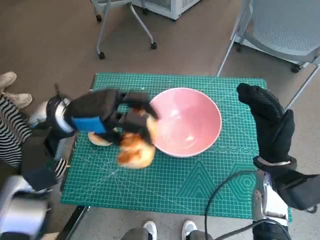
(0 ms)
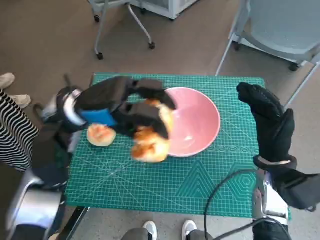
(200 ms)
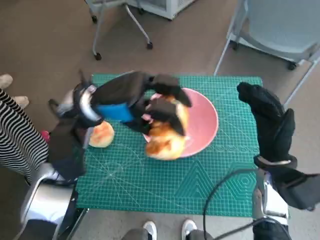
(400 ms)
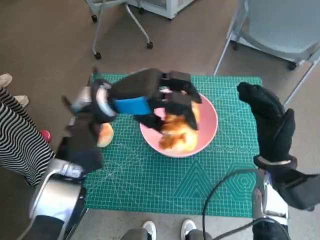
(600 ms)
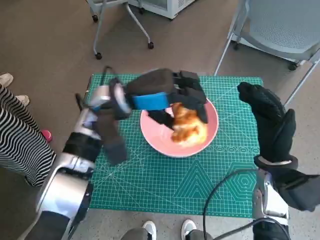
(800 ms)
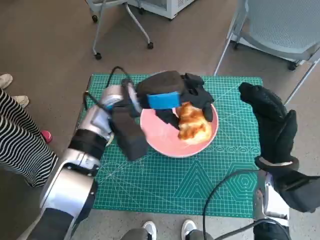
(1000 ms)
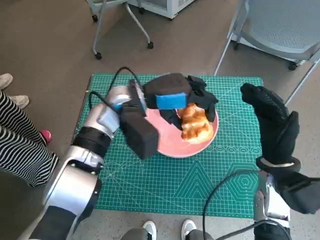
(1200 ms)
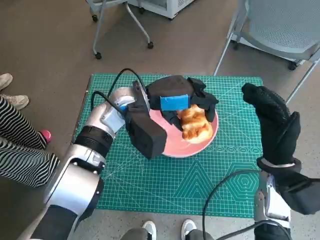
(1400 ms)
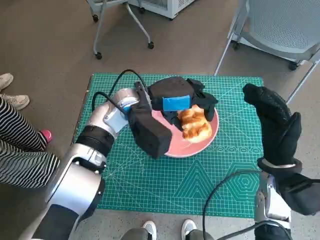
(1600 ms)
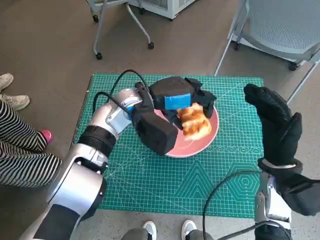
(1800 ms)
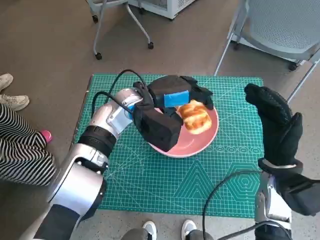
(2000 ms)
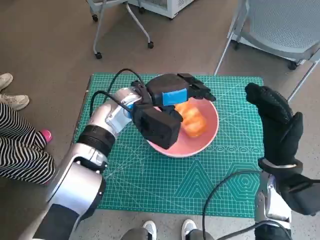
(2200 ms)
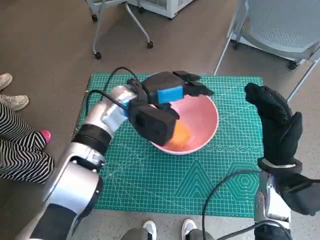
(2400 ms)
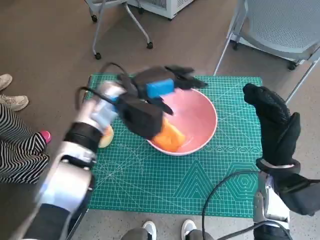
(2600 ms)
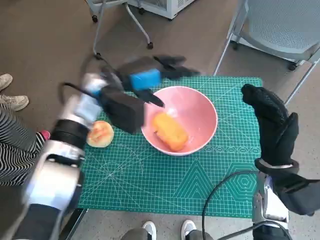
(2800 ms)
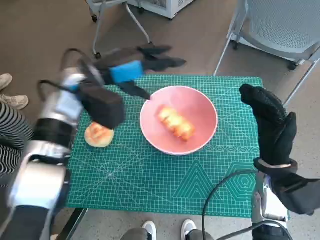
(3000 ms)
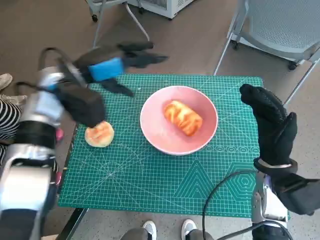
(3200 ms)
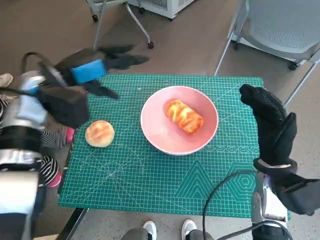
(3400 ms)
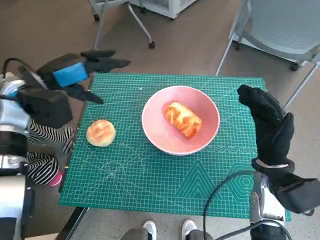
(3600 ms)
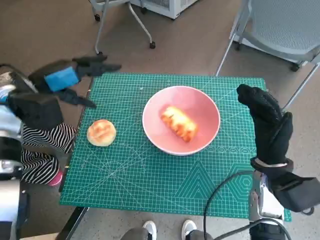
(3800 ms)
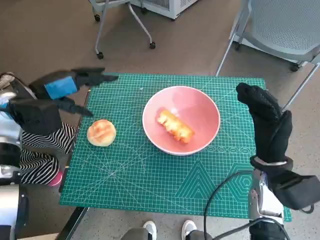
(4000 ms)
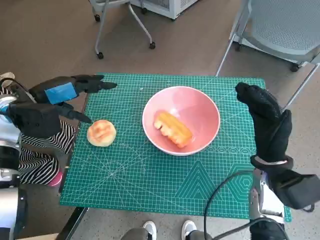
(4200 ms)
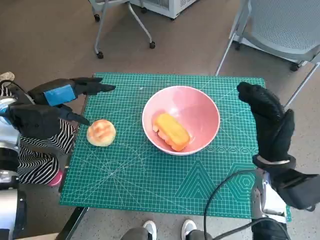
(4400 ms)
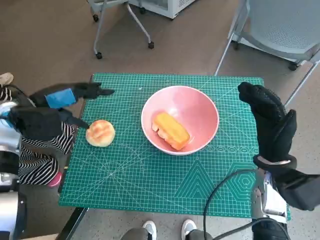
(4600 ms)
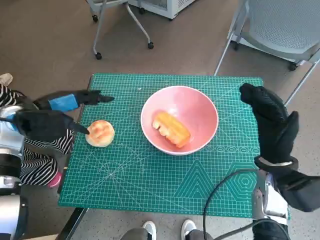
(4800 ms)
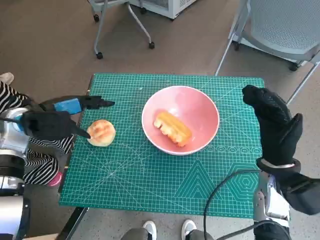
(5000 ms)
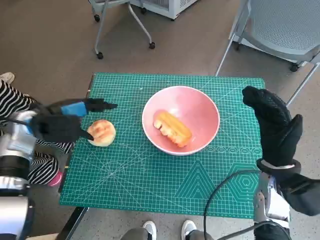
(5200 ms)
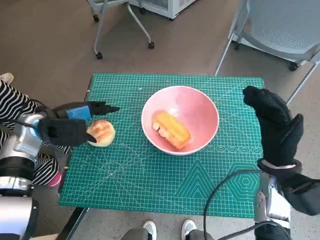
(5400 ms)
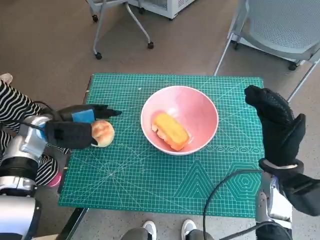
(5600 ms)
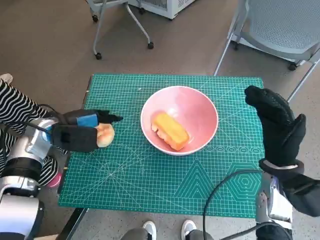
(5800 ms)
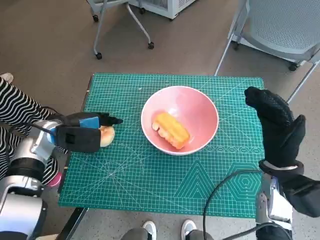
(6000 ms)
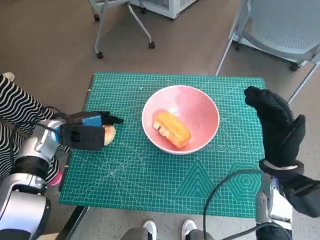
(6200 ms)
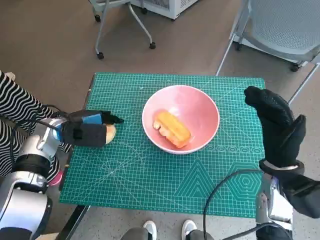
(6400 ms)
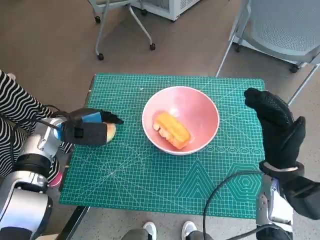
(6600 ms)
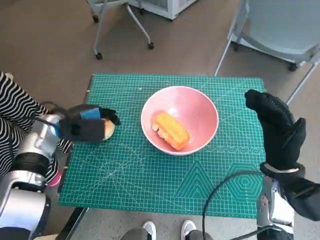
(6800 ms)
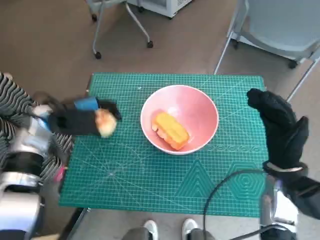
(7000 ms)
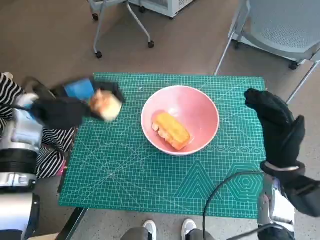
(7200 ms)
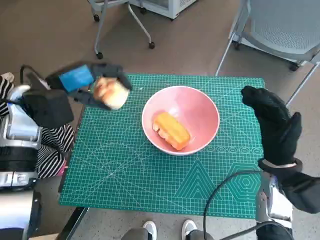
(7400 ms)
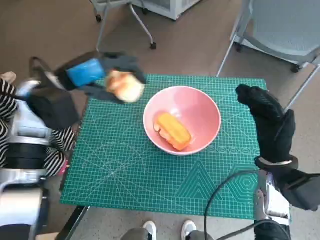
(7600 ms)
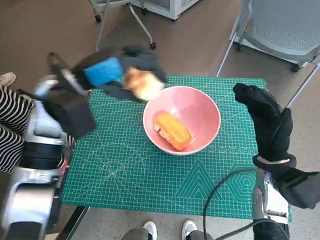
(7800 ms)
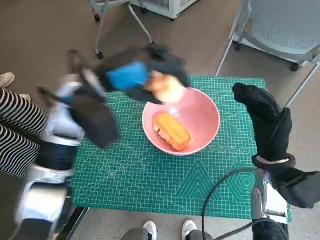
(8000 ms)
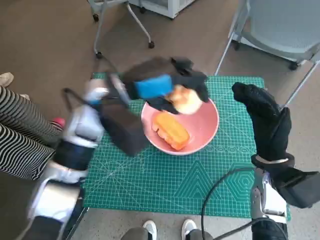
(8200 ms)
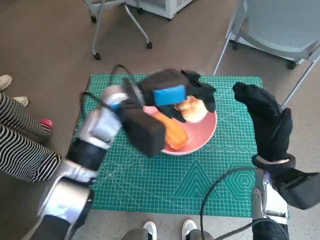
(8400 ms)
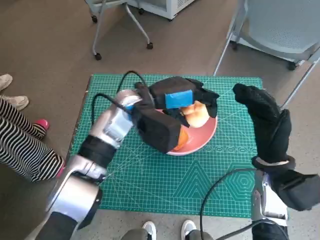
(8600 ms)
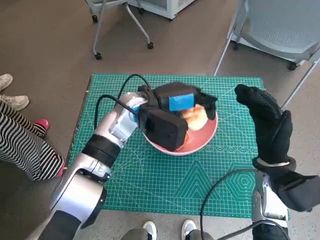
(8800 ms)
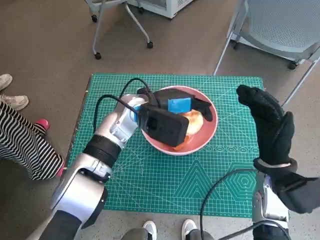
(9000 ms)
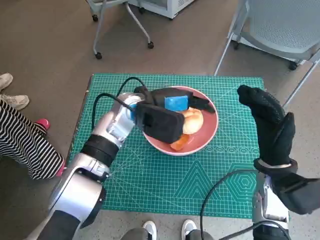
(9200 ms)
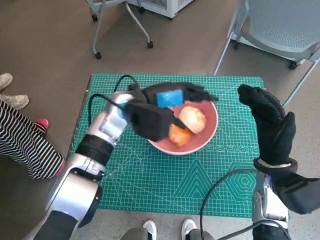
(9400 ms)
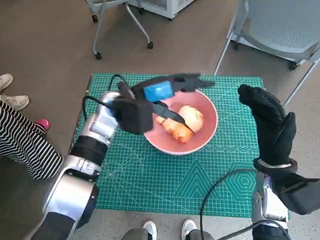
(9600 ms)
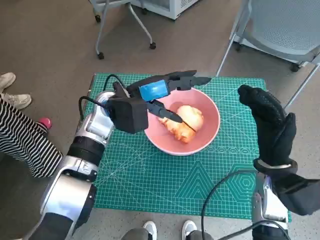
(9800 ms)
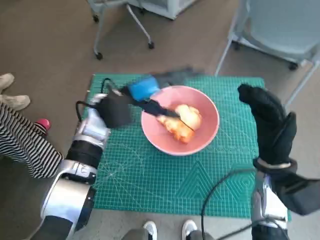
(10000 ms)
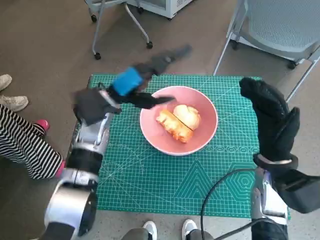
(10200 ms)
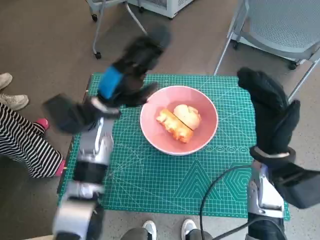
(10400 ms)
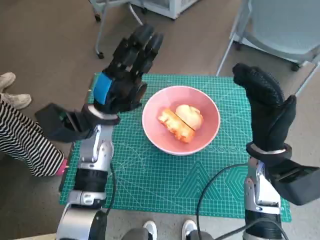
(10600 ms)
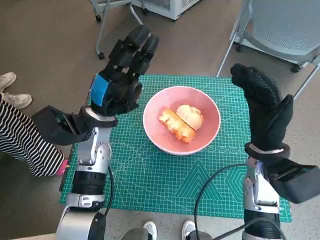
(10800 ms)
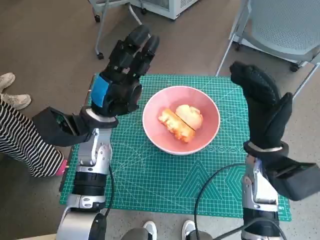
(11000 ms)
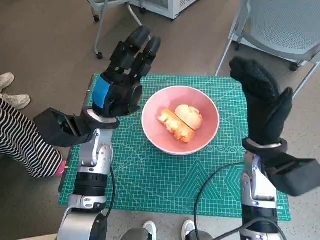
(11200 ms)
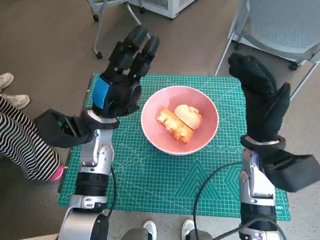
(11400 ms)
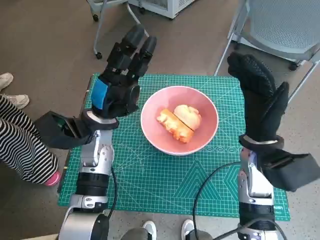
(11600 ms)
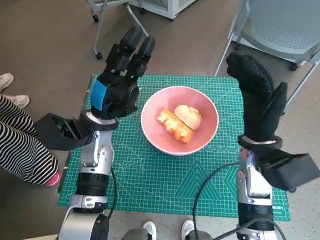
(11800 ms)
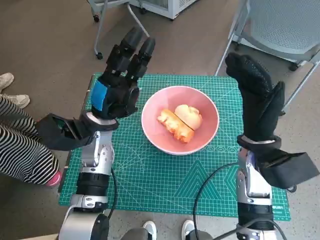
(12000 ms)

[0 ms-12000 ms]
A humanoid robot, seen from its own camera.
Task of the whole recording: Push the bowl into the center of the table and put the bread into the bowl.
Step, 0 ms to 2400 ms: Place the long bread in pink bowl with left hand.
Step, 2600 ms to 6400 ms: Grasp the round bread with left hand.
Step, 6600 ms to 9400 ms: Place the round bread in pink bowl with left hand.
0 ms to 1600 ms: The left hand heads to the right, covering approximately 15 cm.
1600 ms to 3000 ms: The left hand goes some 10 cm to the left.
3000 ms to 4400 ms: The left hand shifts about 15 cm to the left.
4400 ms to 6000 ms: The left hand shifts about 10 cm downward.
6000 ms to 7600 ms: The left hand travels upward by some 10 cm.
7600 ms to 9000 ms: The left hand travels to the right and downward by some 15 cm.
9000 ms to 10400 ms: The left hand goes approximately 10 cm to the left.

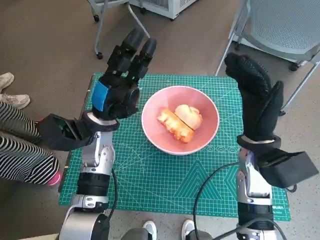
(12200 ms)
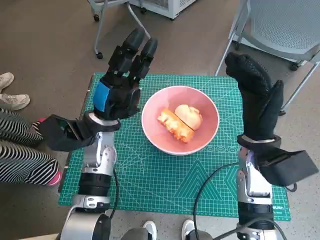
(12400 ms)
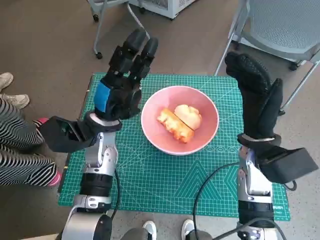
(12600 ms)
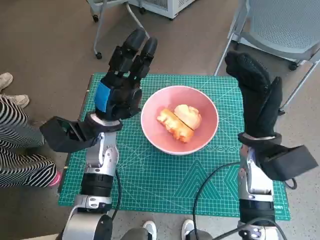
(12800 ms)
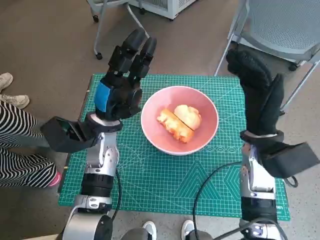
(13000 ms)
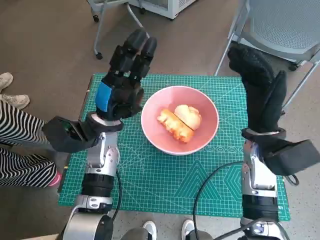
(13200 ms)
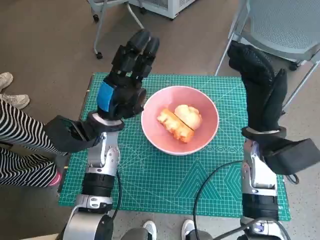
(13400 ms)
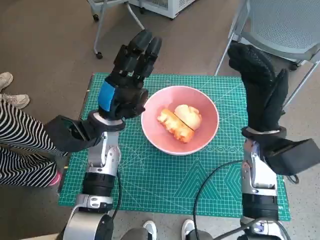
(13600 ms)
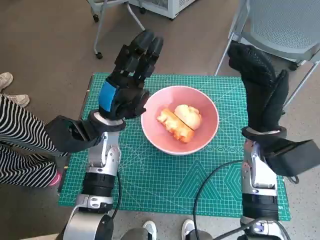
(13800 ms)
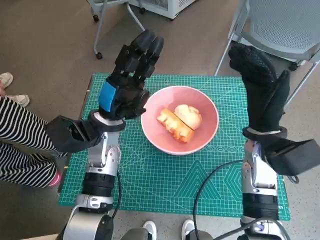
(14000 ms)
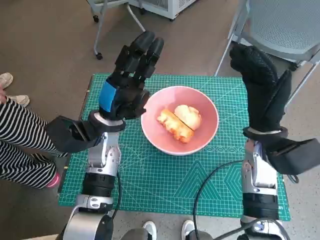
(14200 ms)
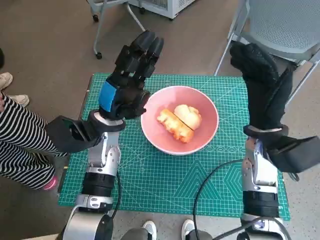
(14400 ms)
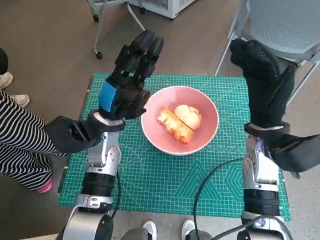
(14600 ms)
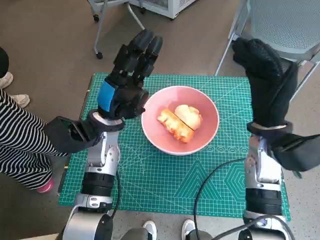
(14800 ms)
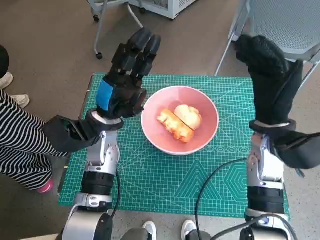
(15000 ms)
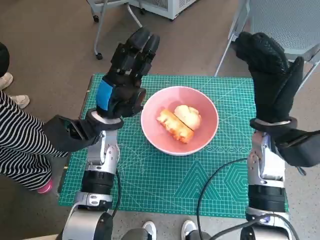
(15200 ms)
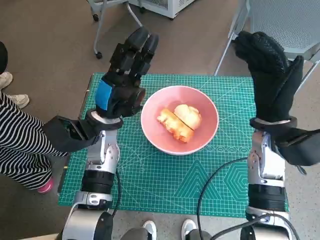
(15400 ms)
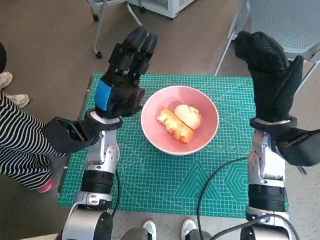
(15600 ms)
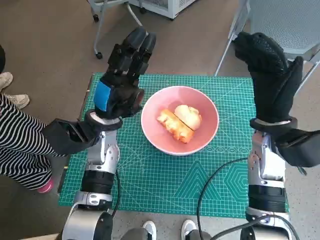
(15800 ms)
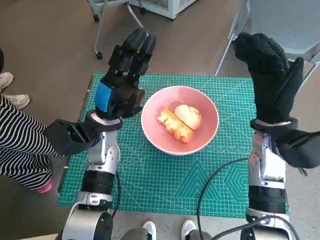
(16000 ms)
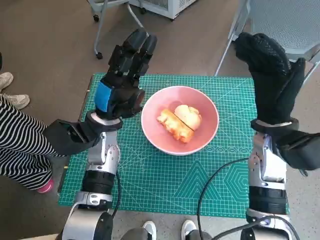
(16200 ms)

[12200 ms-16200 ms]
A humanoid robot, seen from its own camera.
Task of the whole recording: Push the bowl into the center of the table and put the bread into the bowl.
12200 ms to 13600 ms: The hands move only a little.
13600 ms to 14800 ms: Both hands stay put.
14800 ms to 16200 ms: The two hands keep their place.

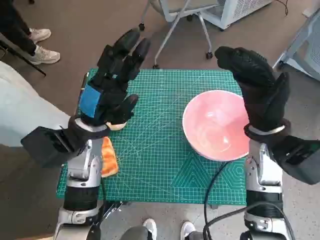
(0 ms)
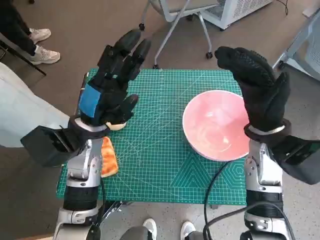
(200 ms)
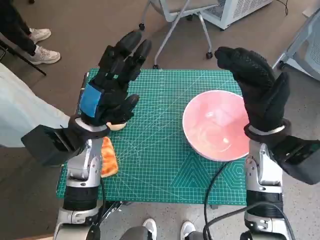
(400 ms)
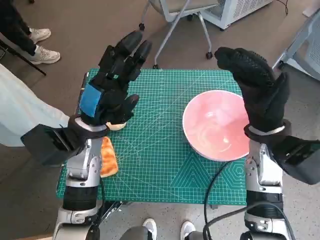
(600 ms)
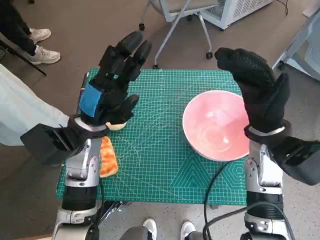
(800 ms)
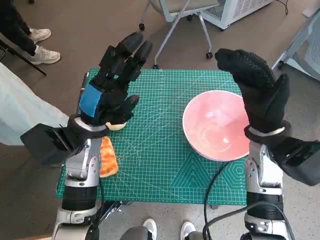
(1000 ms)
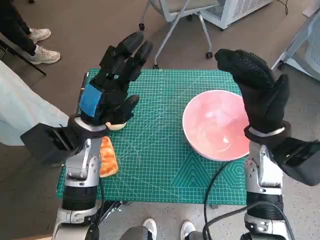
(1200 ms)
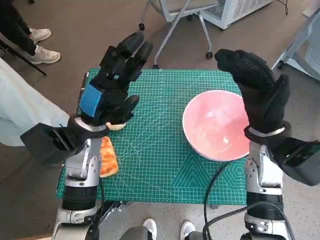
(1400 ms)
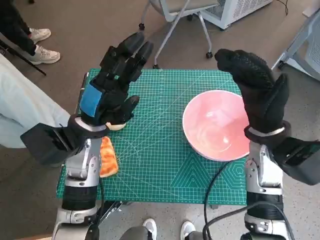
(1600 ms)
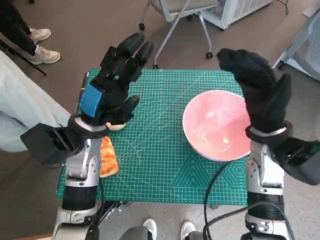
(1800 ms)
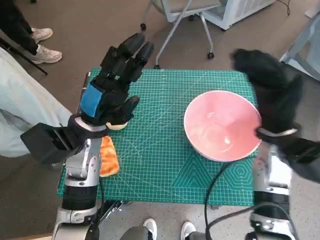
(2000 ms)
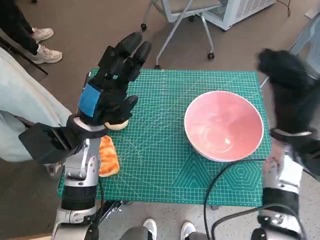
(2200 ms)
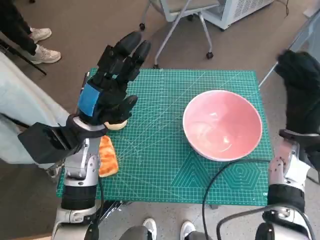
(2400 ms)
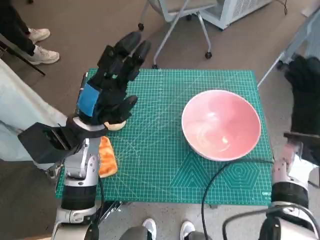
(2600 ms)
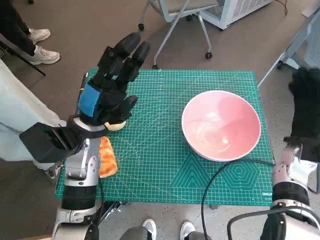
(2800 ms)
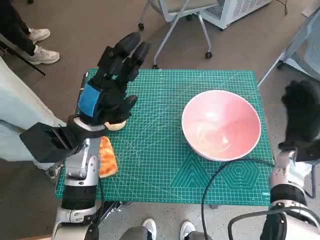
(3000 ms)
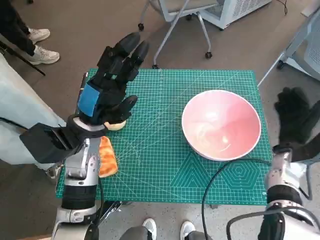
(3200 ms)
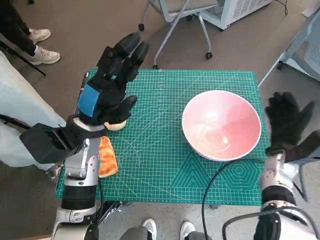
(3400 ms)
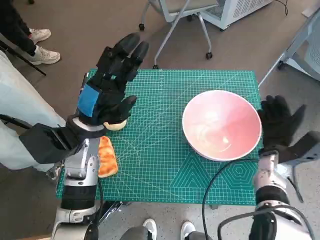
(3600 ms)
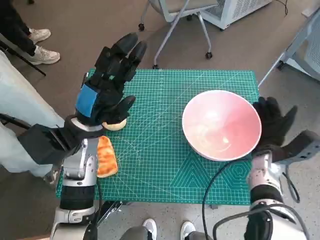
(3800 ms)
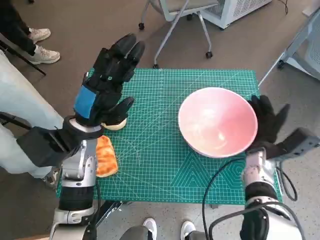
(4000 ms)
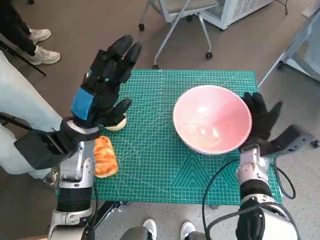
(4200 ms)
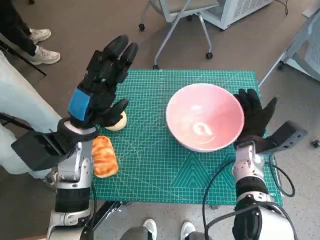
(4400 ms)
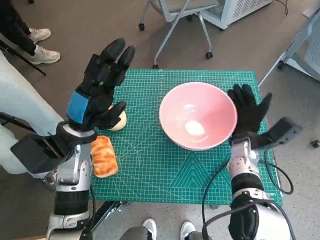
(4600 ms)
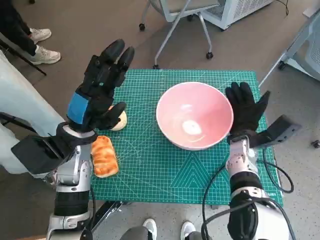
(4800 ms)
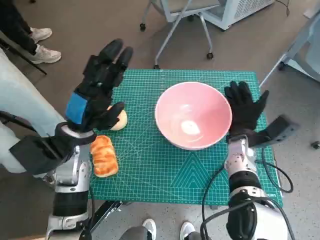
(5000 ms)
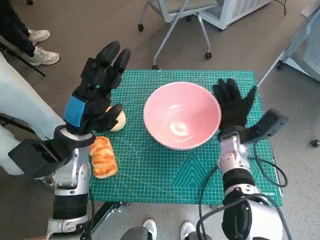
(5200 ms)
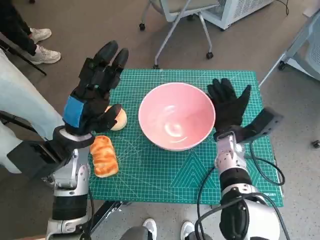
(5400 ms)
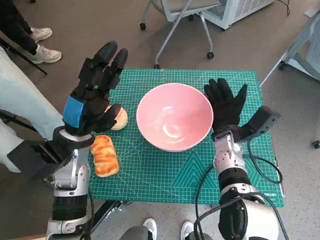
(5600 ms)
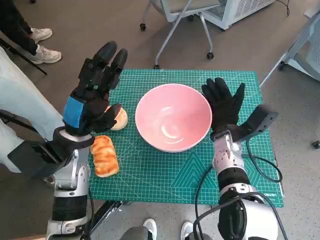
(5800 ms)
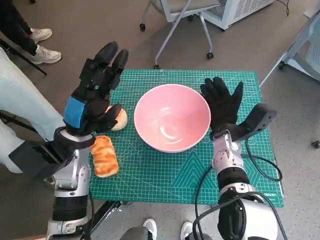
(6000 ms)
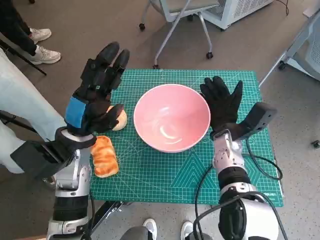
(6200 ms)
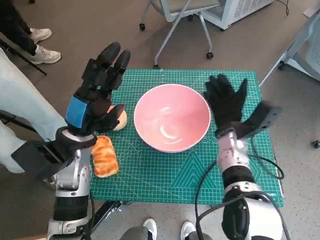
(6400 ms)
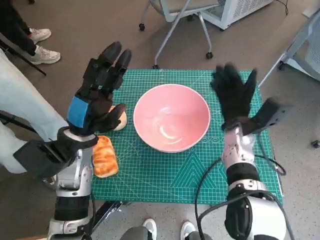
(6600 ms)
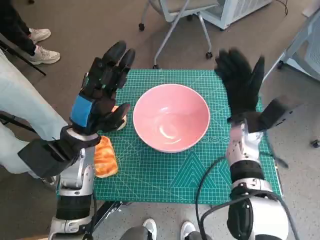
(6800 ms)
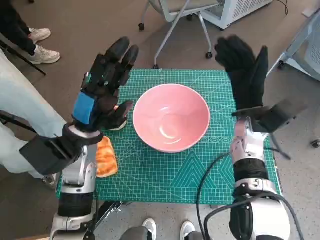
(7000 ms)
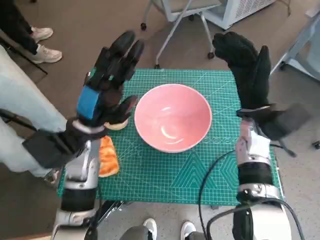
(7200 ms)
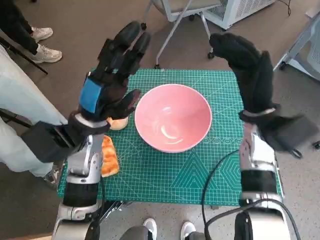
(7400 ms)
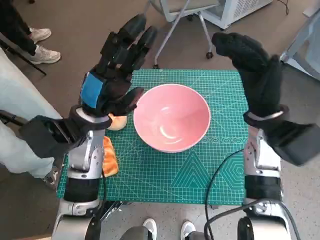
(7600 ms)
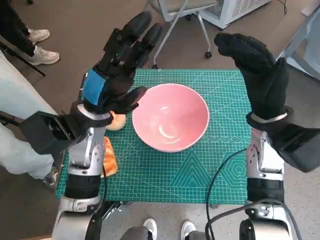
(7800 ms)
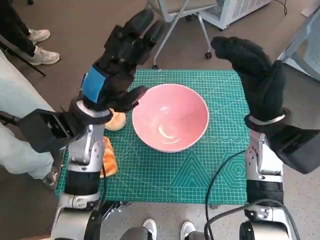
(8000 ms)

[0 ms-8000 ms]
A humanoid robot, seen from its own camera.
Task of the whole recording: Push the bowl into the center of the table and put the bread into the bowl.
Step, 0 ms to 6800 ms: Move the pink bowl to the center of table with right hand.
1600 ms to 3200 ms: The right hand moves downward and to the right, roughly 15 cm.
3200 ms to 4800 ms: The right hand travels to the left by some 10 cm.
6400 ms to 8000 ms: The left hand changes place by some 5 cm. The right hand travels upward by about 10 cm.
